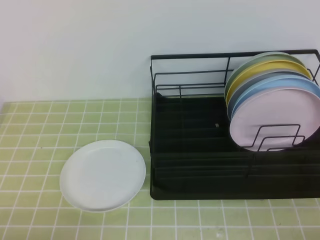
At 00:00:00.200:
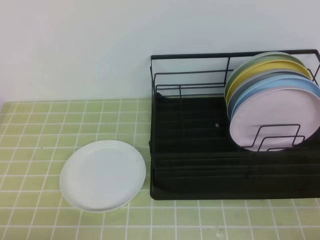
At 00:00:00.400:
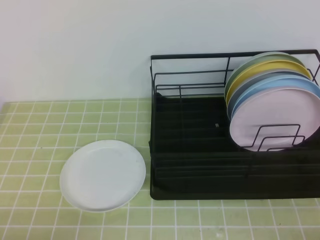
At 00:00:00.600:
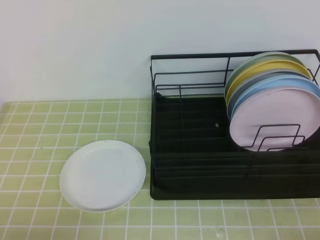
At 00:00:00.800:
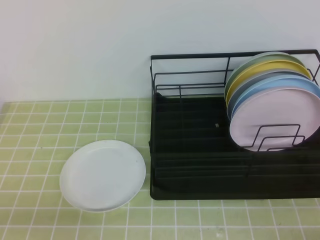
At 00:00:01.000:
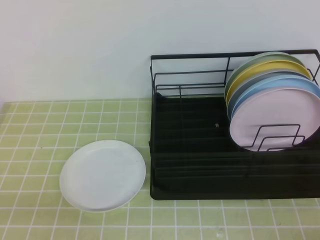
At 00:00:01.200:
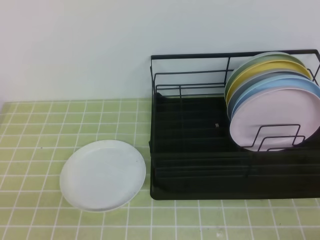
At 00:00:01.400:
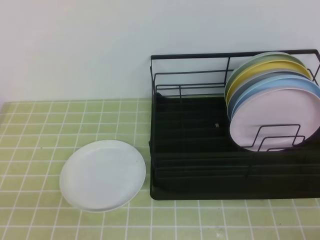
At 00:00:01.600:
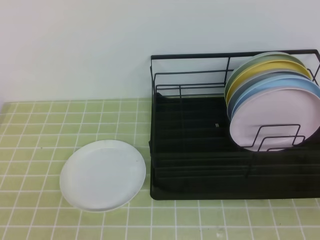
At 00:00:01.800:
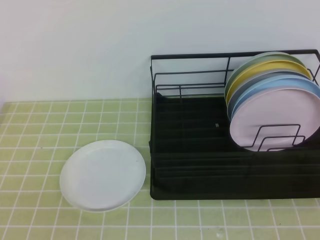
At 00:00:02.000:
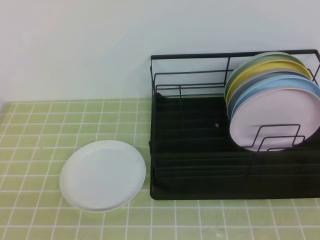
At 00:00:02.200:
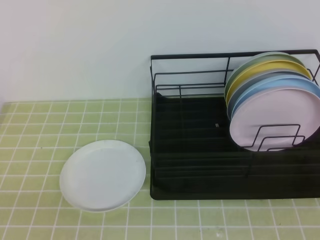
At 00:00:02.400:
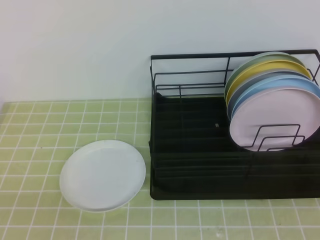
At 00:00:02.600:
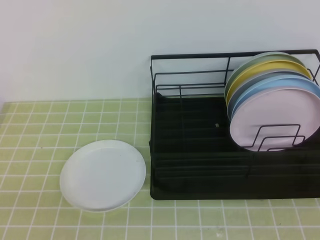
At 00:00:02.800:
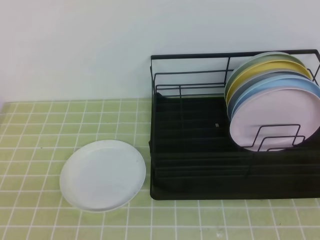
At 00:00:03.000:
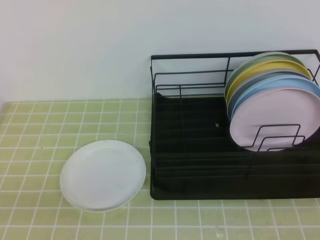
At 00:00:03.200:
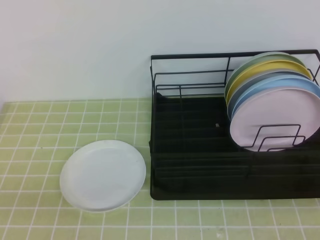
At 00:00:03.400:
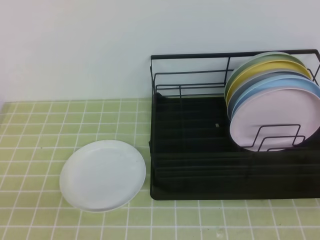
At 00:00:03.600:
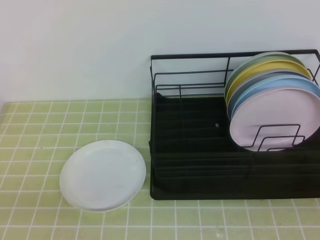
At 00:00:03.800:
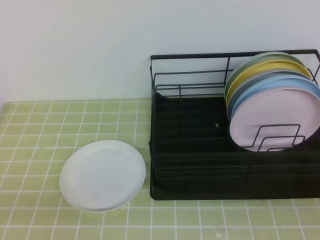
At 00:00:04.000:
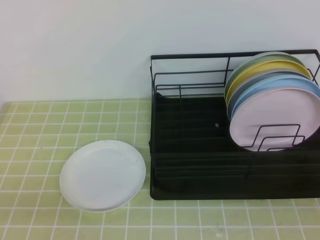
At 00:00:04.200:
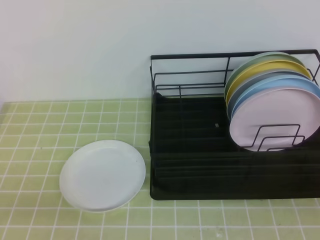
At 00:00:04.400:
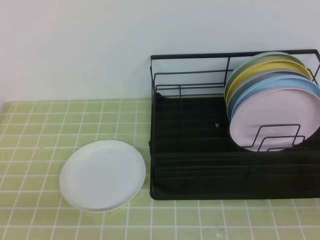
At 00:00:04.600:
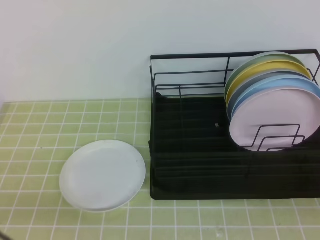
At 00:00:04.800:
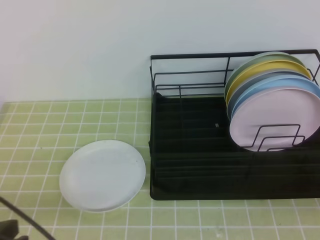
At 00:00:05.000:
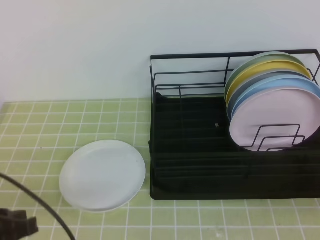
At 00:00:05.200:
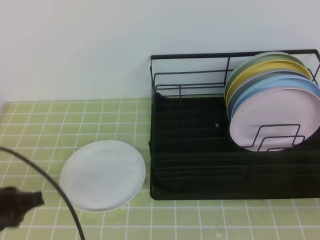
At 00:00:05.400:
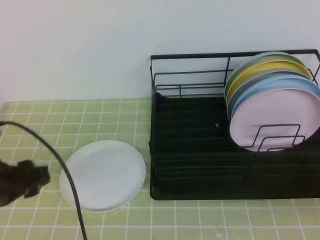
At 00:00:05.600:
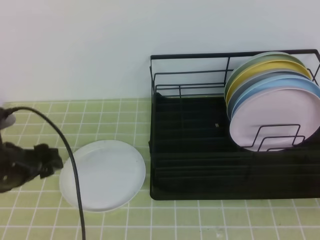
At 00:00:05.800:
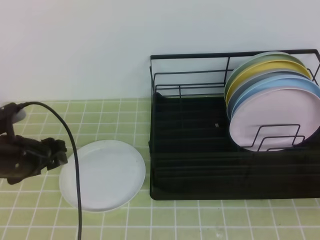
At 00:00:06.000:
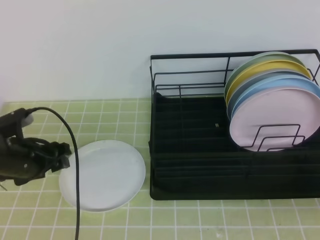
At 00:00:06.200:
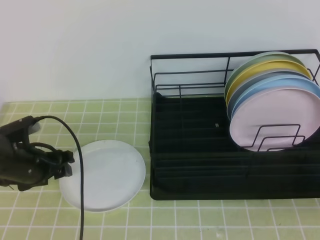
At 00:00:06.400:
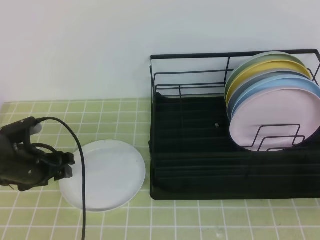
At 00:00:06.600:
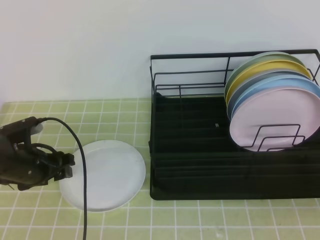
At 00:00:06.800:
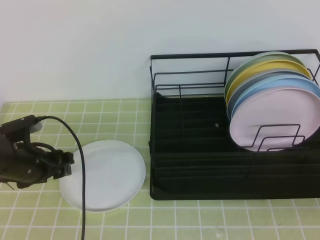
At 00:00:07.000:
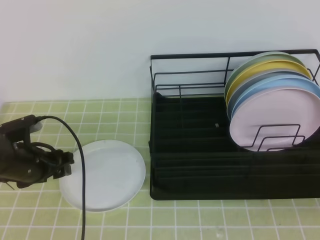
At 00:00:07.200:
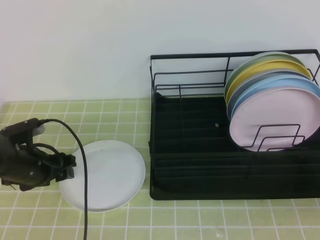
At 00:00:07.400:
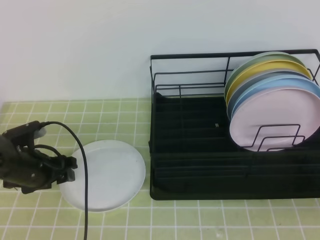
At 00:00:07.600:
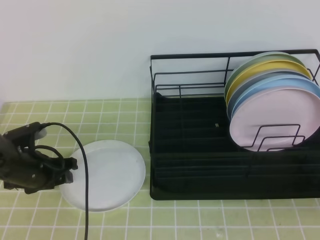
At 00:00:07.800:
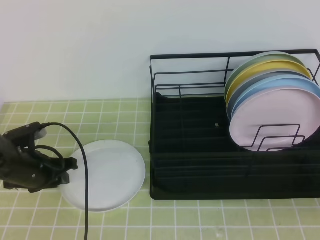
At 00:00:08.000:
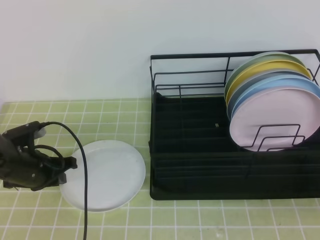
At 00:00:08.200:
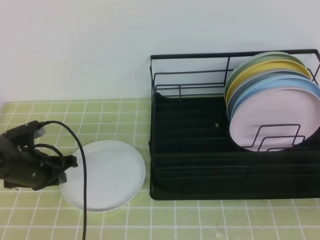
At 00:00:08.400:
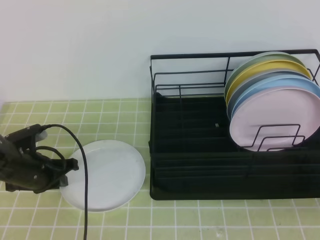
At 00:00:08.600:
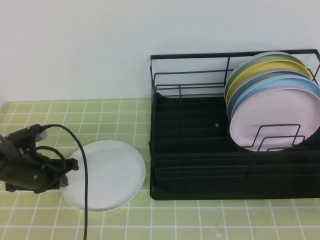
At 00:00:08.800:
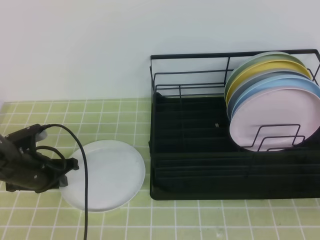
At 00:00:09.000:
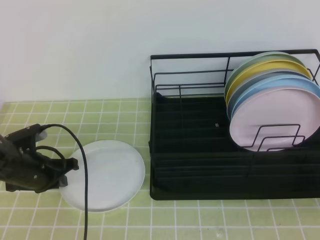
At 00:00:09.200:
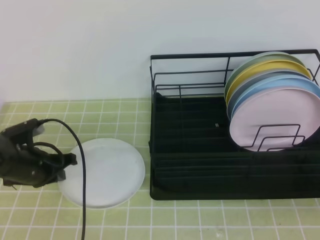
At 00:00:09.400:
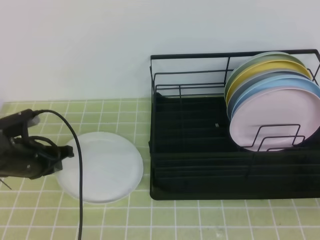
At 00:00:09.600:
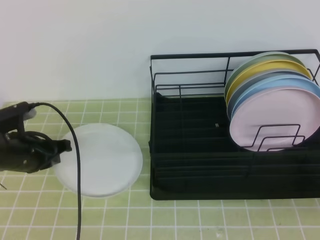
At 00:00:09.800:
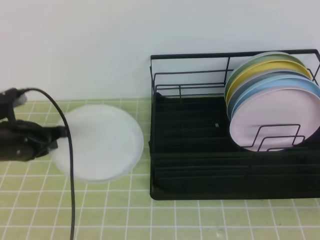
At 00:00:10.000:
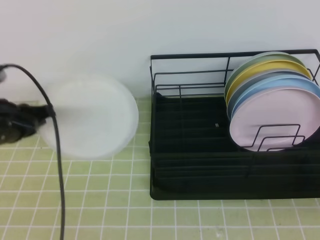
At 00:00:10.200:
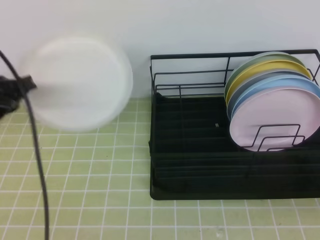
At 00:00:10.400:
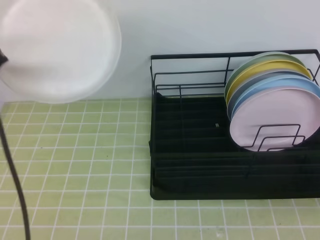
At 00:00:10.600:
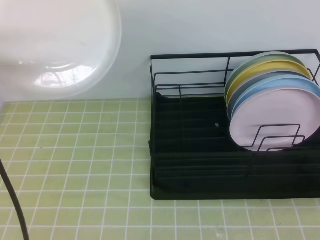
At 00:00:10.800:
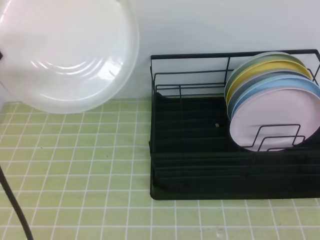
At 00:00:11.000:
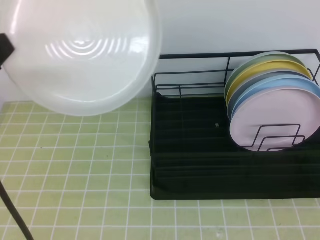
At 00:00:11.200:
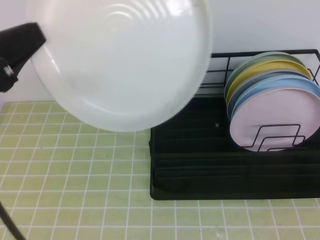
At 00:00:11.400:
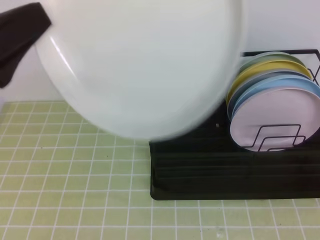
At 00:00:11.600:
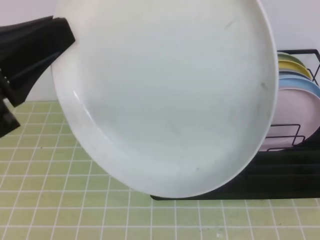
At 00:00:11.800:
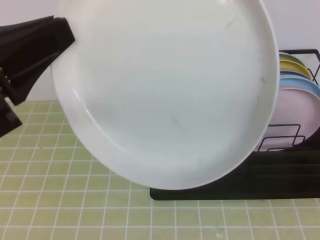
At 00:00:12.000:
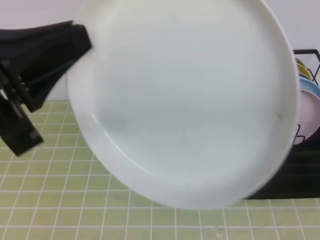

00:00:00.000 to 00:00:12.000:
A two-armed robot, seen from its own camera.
Step, 00:00:00.000 to 00:00:07.600: Left grab the white plate.
Step, 00:00:08.000 to 00:00:11.600: Right receive the plate.
00:00:04.400 to 00:00:06.000: The left gripper is displaced forward by roughly 25 cm, and opens up.
00:00:06.000 to 00:00:07.600: The grippers move only a little.
00:00:07.600 to 00:00:09.000: The left gripper closes.
00:00:09.000 to 00:00:10.400: The left gripper shifts about 25 cm upward and backward.
00:00:10.400 to 00:00:12.000: The right gripper travels upward by about 15 cm, and opens its fingers, while the left gripper travels backward, to the right and upward by roughly 15 cm.

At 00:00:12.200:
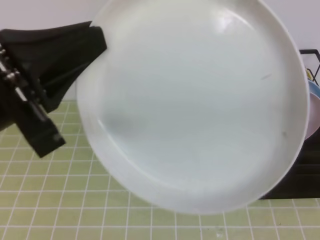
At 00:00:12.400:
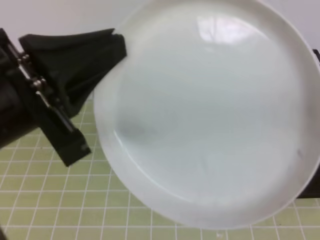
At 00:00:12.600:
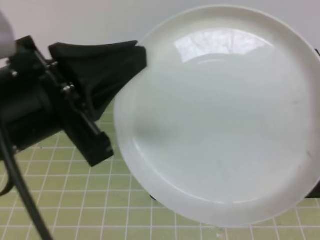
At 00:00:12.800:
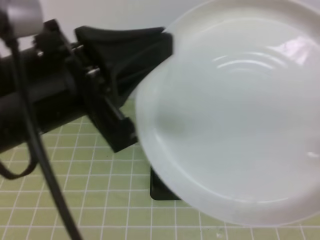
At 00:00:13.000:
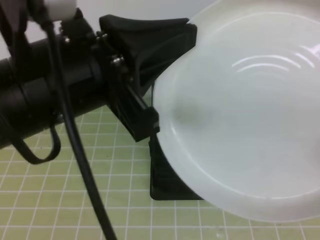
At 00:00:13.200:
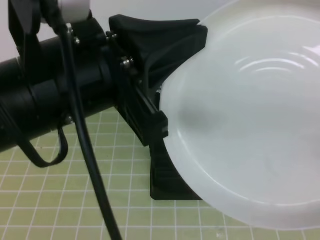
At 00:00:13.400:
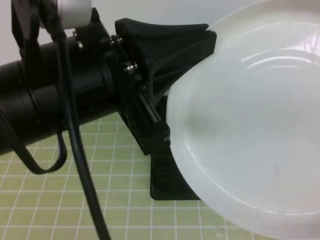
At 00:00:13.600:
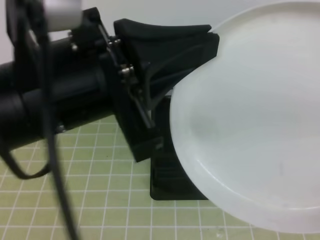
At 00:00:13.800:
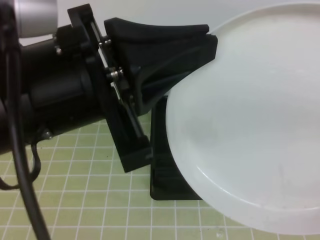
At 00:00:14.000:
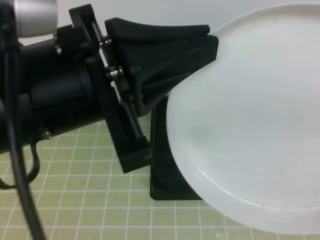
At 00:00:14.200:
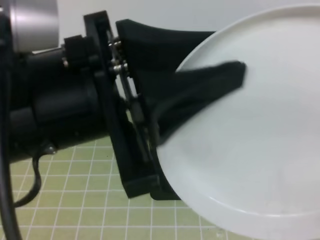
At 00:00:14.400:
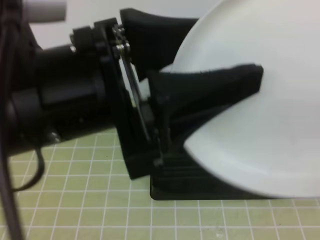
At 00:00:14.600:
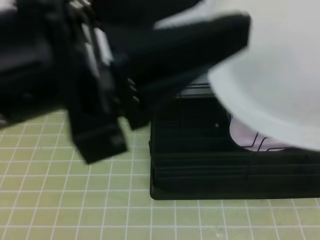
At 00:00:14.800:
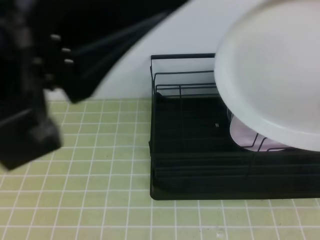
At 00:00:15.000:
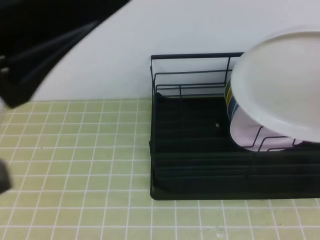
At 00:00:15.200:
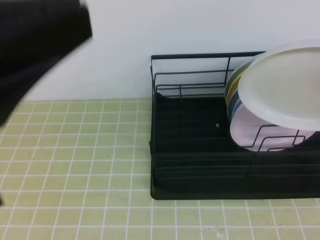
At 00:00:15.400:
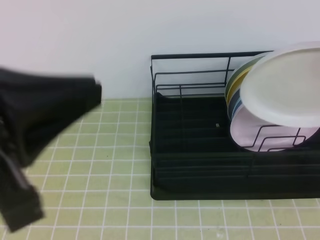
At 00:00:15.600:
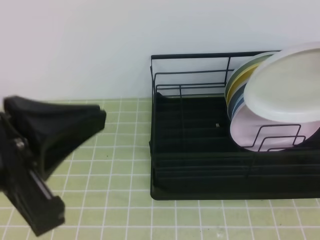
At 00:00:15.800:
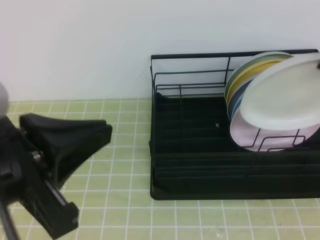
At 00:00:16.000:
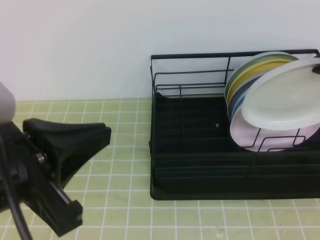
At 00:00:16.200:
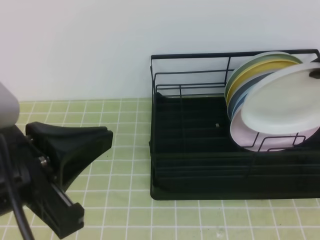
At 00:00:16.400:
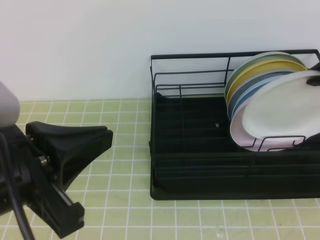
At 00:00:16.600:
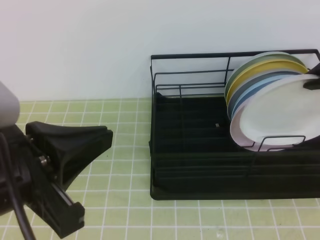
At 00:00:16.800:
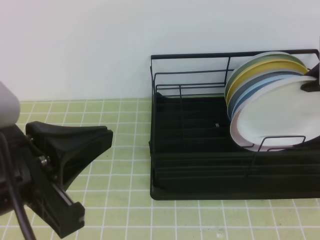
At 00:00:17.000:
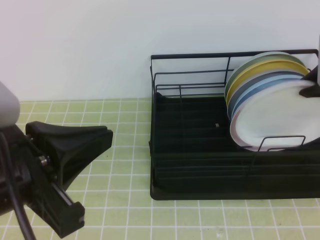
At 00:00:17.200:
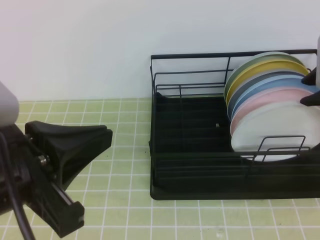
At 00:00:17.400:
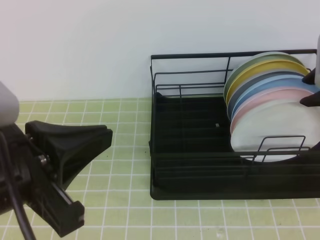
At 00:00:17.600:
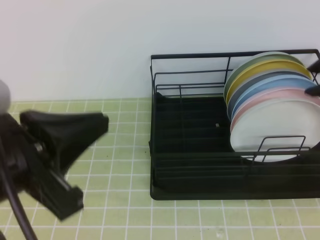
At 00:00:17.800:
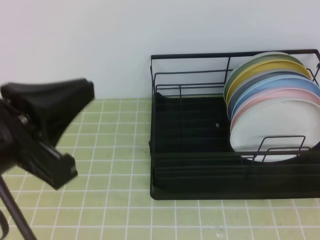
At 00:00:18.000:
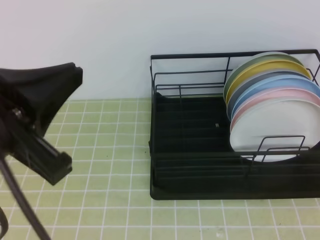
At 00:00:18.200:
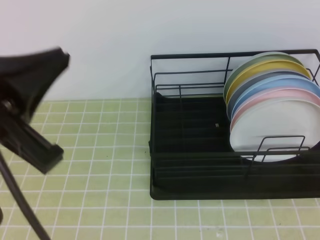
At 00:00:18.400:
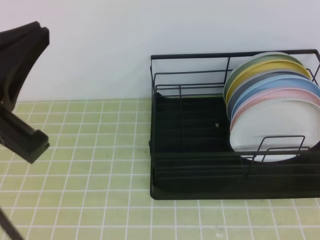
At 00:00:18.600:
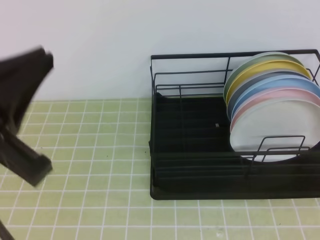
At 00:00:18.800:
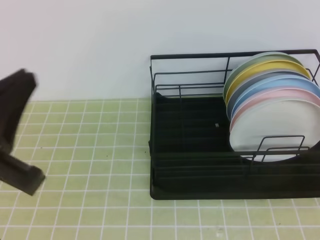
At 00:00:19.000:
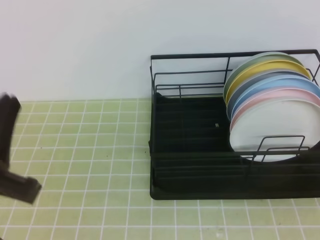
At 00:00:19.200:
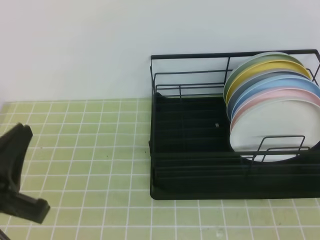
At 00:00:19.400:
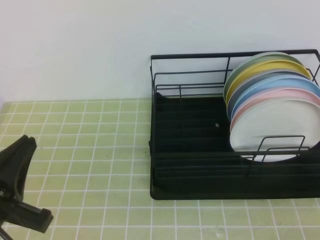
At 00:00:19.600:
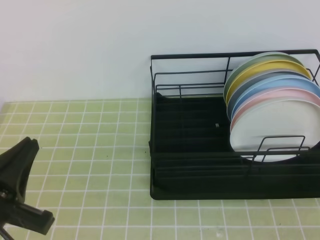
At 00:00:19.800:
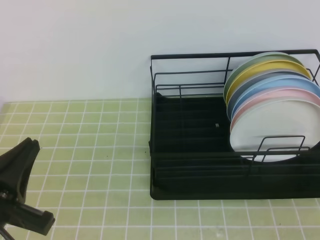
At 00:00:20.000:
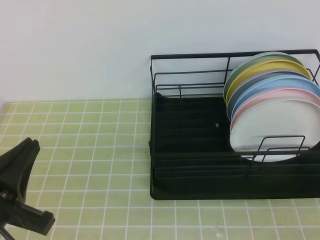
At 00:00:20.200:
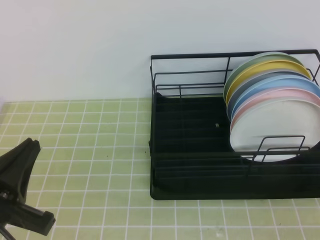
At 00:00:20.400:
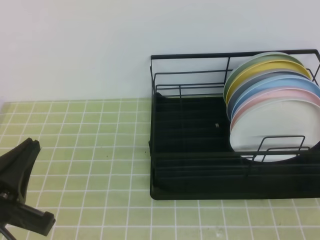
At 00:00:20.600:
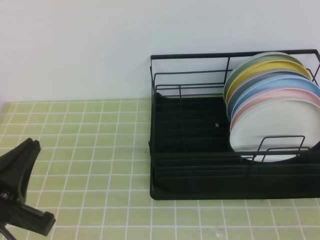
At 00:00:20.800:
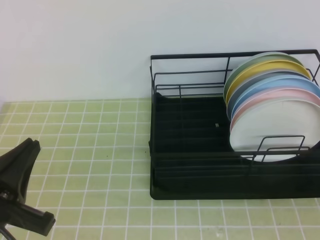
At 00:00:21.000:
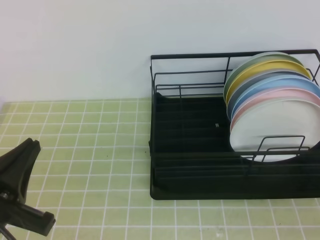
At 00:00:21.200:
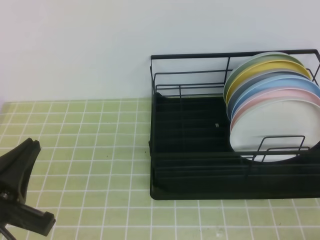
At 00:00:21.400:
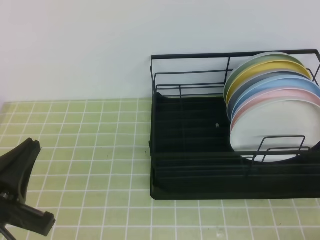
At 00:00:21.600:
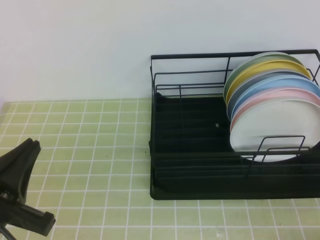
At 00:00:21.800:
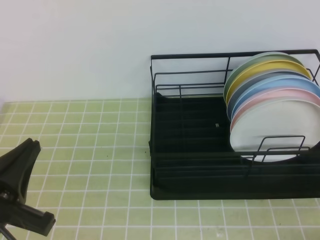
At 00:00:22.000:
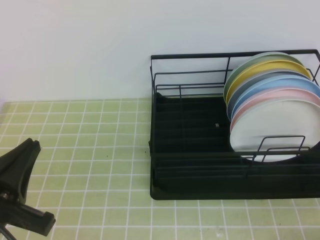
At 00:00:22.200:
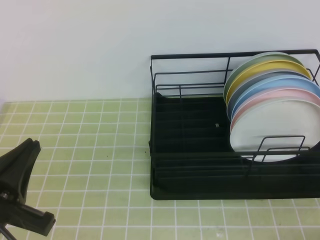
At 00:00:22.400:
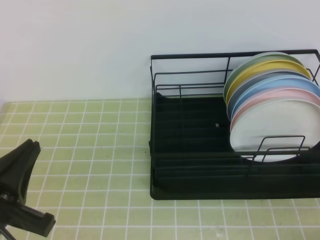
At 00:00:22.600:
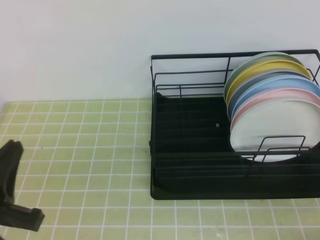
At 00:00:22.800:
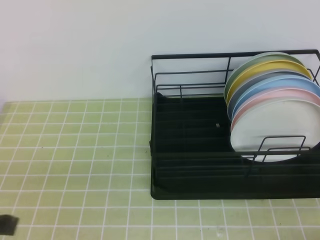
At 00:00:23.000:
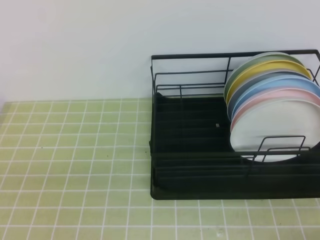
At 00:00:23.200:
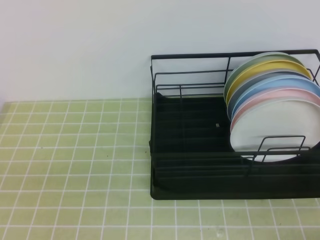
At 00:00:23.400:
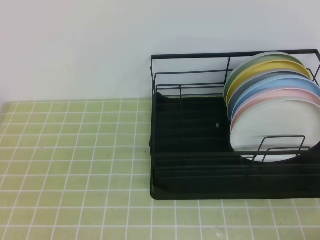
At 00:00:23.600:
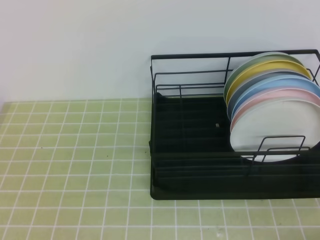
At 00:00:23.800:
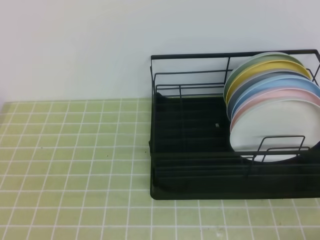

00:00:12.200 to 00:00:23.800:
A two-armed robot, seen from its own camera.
Step, 00:00:12.200 to 00:00:14.400: Right place it at the front of the shelf.
00:00:12.200 to 00:00:13.600: The right gripper closes up, while the left gripper is displaced to the right by roughly 5 cm.
00:00:13.600 to 00:00:15.000: The right gripper heads forward, covering approximately 10 cm. Meanwhile the left gripper travels backward and upward by about 10 cm, and opens, then closes once more.
00:00:15.000 to 00:00:16.600: The left gripper moves downward, approximately 10 cm. Meanwhile the right gripper heads forward, covering about 20 cm.
00:00:16.600 to 00:00:18.000: The right gripper travels upward and backward by roughly 10 cm, and opens.
00:00:18.000 to 00:00:19.400: The left gripper shifts some 10 cm downward.
00:00:22.400 to 00:00:23.800: The left gripper ends up some 5 cm from where it was.
